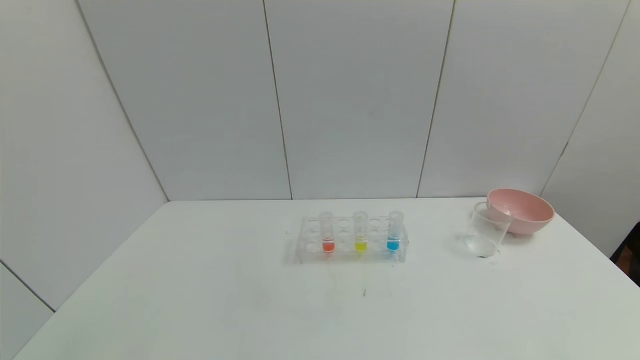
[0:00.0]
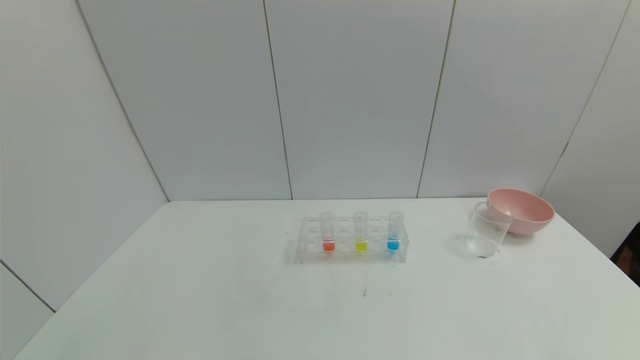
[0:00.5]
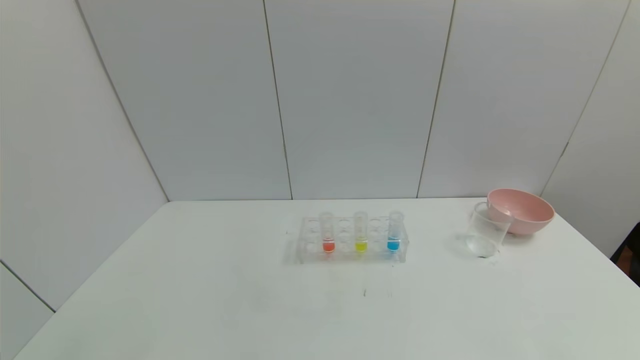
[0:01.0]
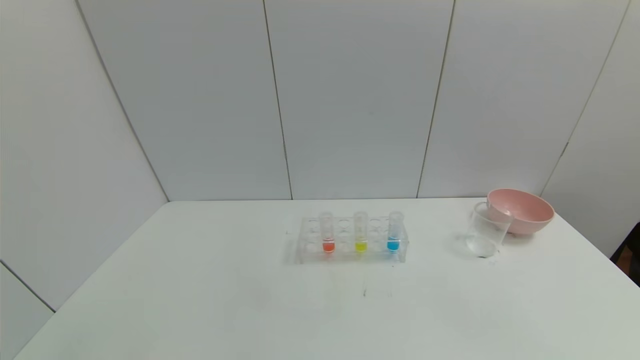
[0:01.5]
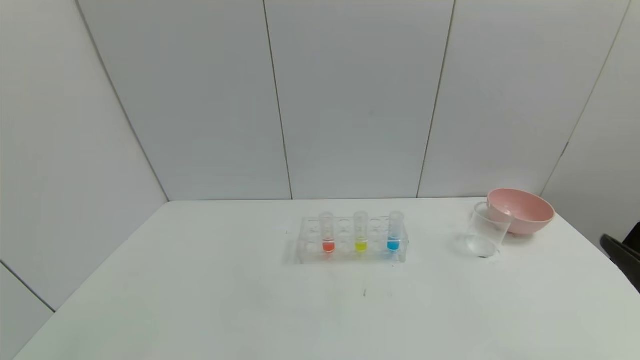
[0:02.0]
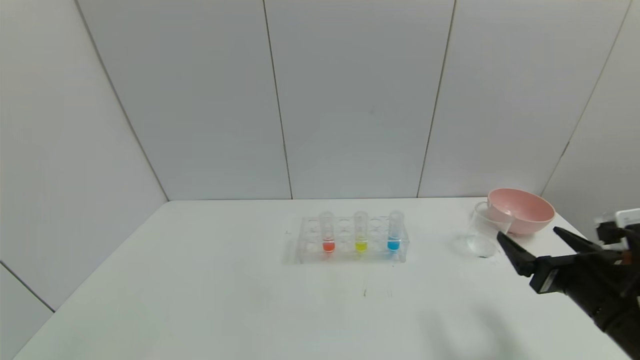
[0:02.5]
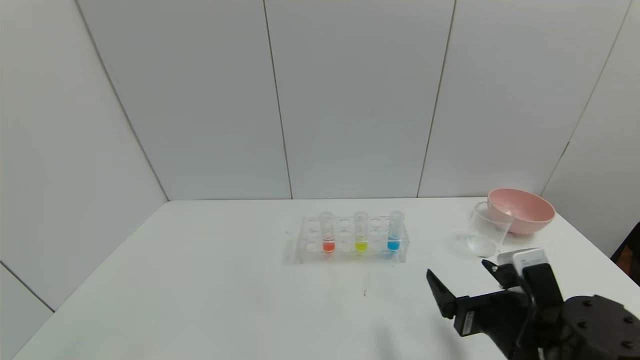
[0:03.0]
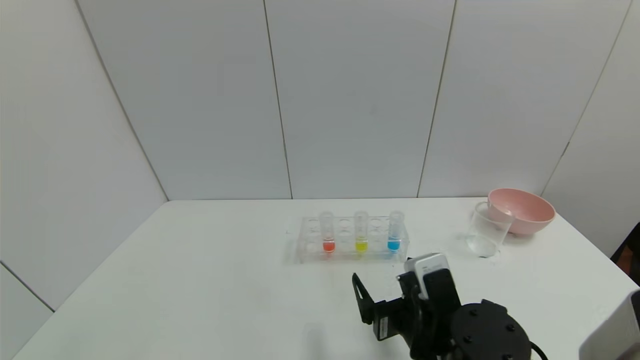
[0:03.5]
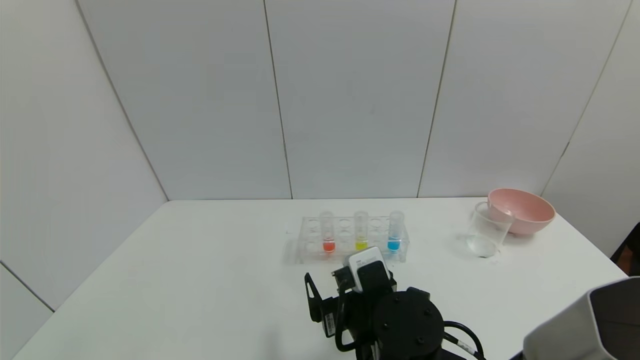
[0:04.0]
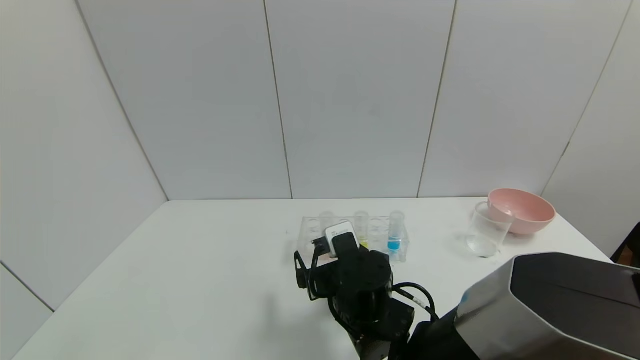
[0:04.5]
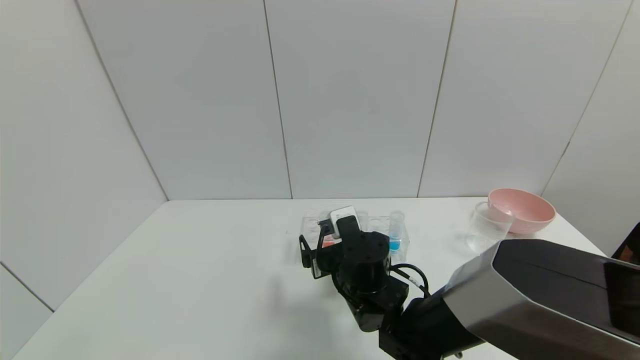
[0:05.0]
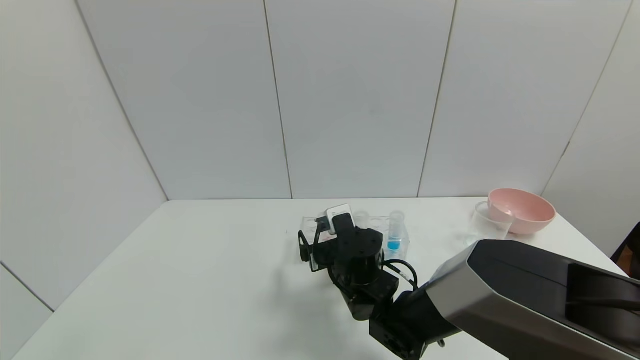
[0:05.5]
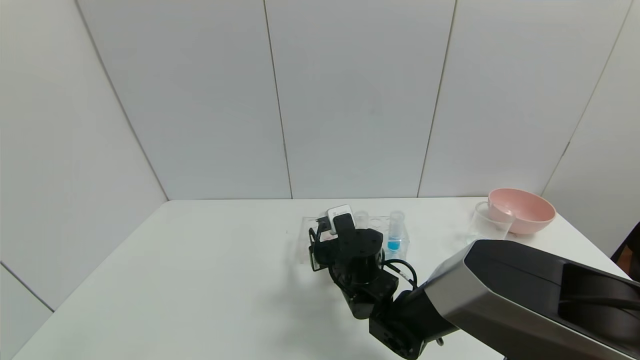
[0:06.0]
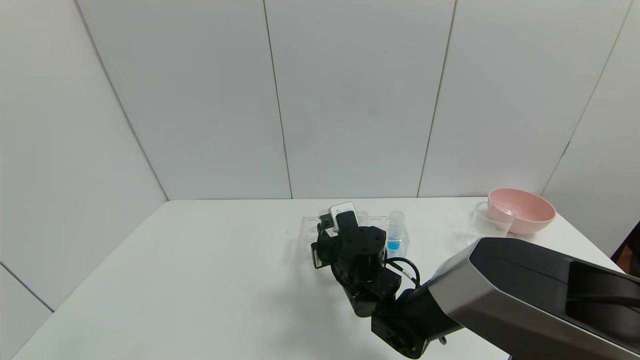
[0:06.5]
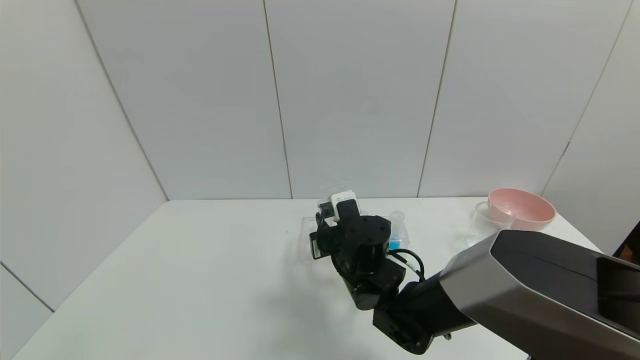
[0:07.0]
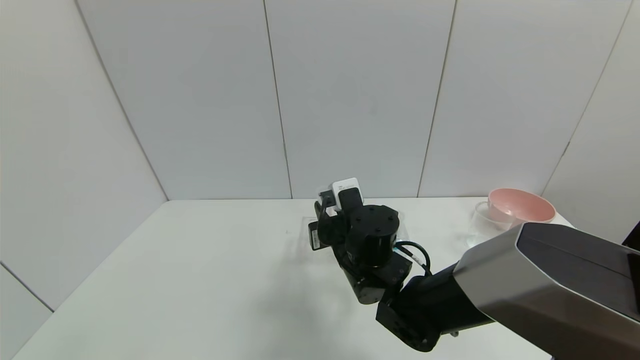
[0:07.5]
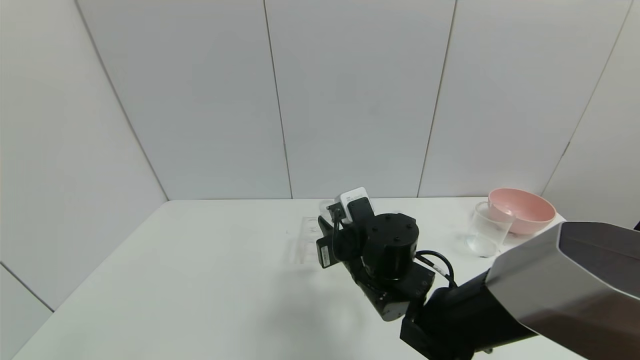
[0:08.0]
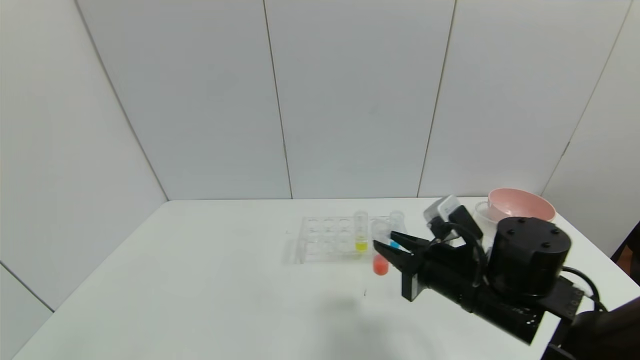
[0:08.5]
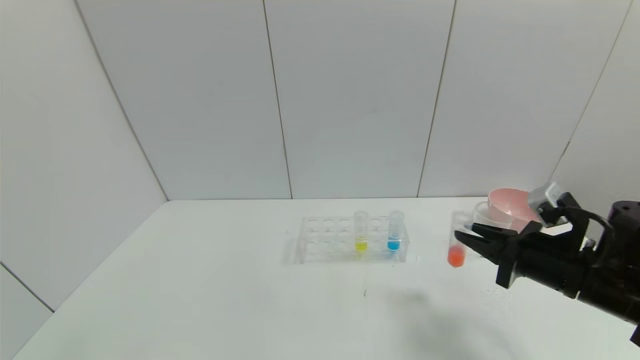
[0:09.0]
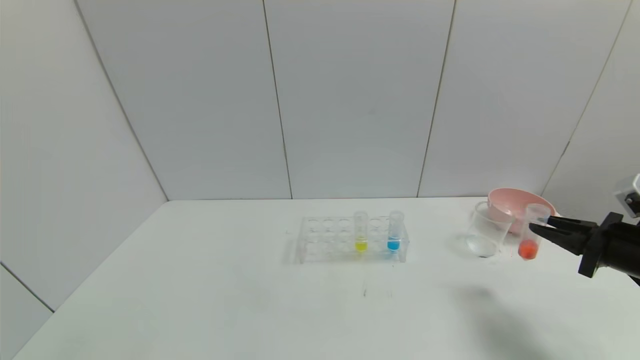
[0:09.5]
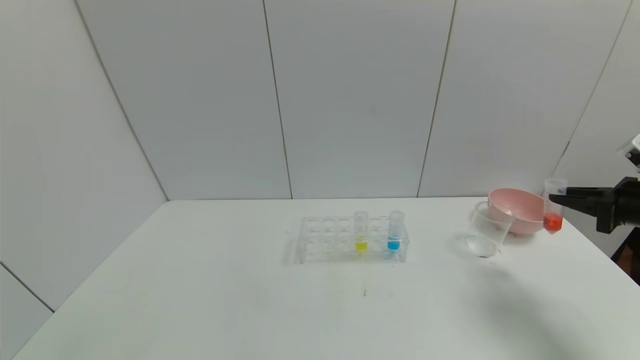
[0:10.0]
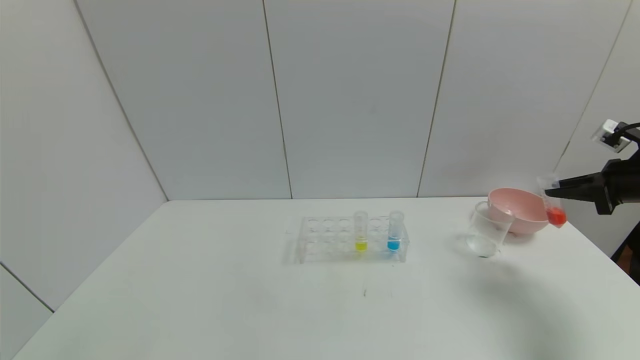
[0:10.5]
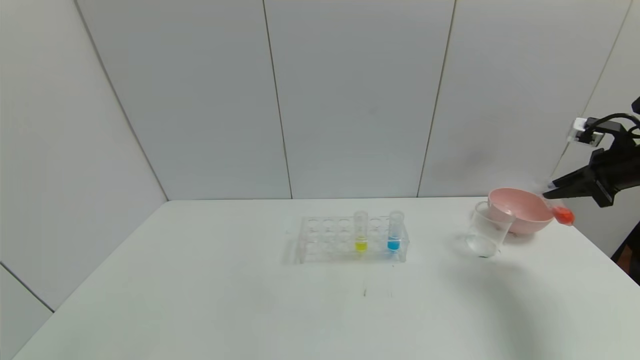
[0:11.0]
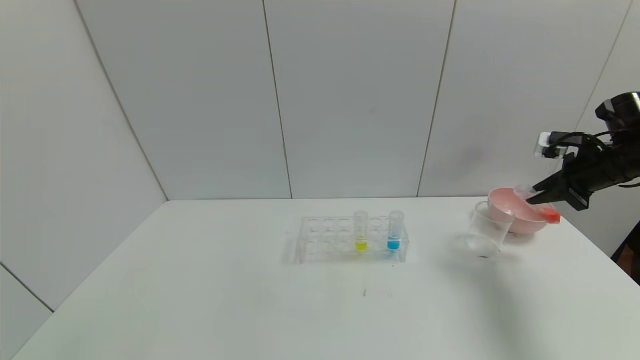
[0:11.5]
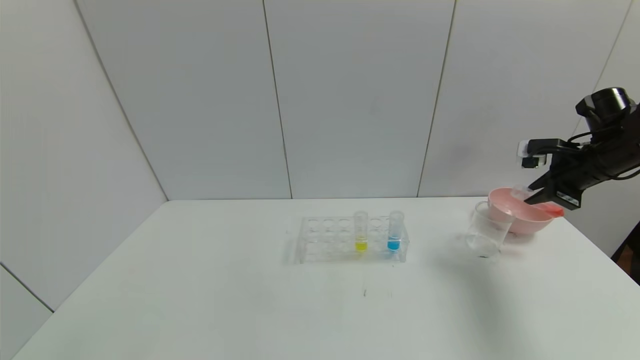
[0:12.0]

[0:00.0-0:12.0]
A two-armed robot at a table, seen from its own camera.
Task of the whole recording: pick up the test tube with red pigment and the test tube with blue pigment by grippers and pour them into the container.
Step, 0:00.0 to 0:06.0: Grasp the red reagent with the right gripper.
0:02.0 to 0:04.0: The right gripper heads to the left, covering some 30 cm.
0:04.0 to 0:06.0: The right gripper goes about 10 cm forward, and closes up.
0:06.0 to 0:08.0: The right gripper travels upward by roughly 5 cm, and closes up.
0:08.0 to 0:10.0: The right gripper moves to the right, some 40 cm.
0:10.0 to 0:12.0: The right gripper is displaced forward by roughly 10 cm.

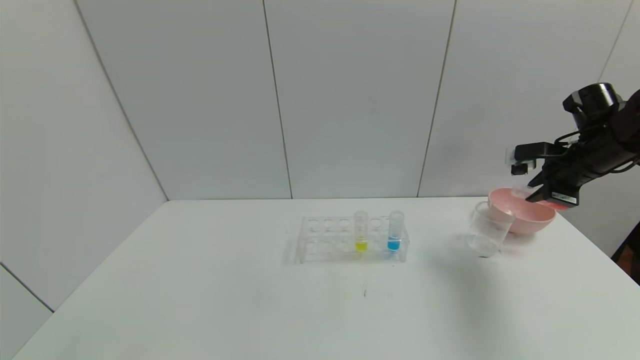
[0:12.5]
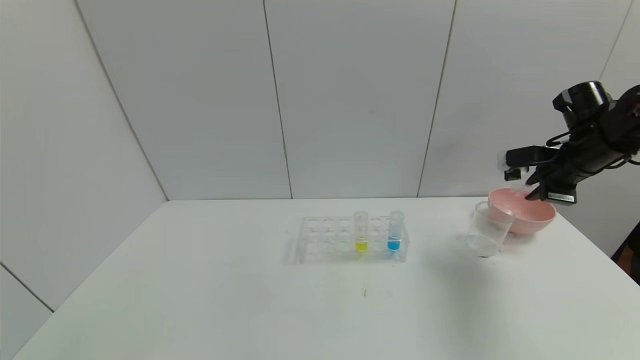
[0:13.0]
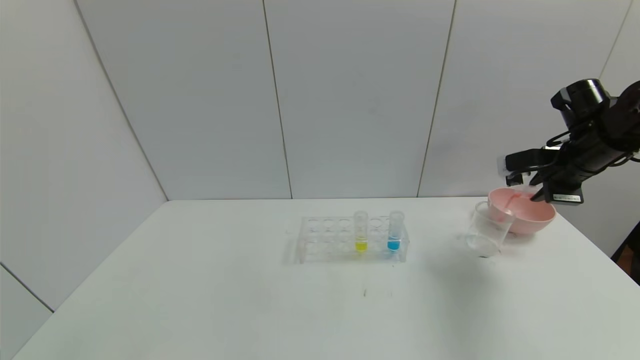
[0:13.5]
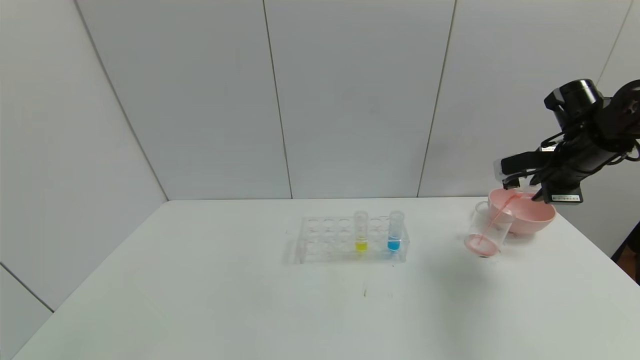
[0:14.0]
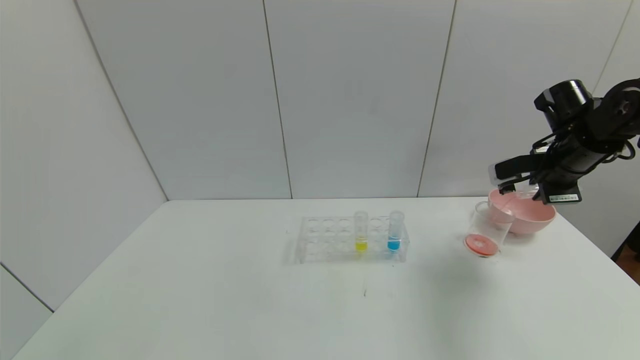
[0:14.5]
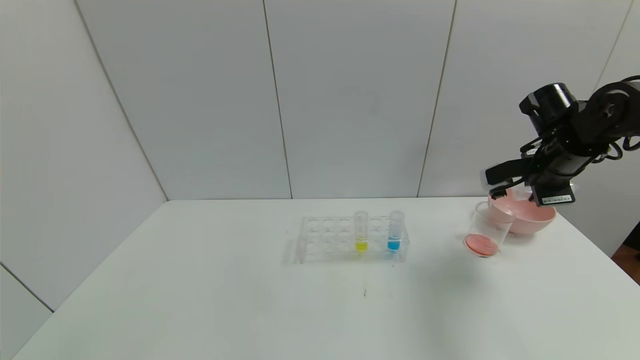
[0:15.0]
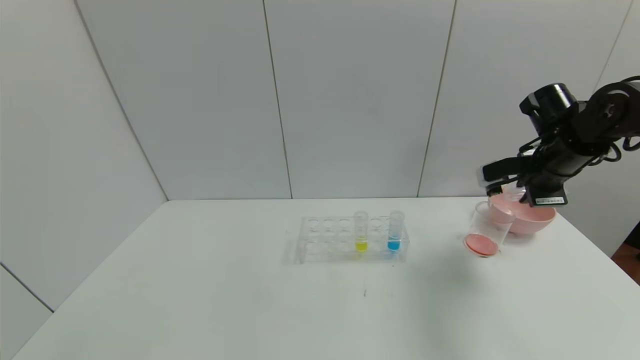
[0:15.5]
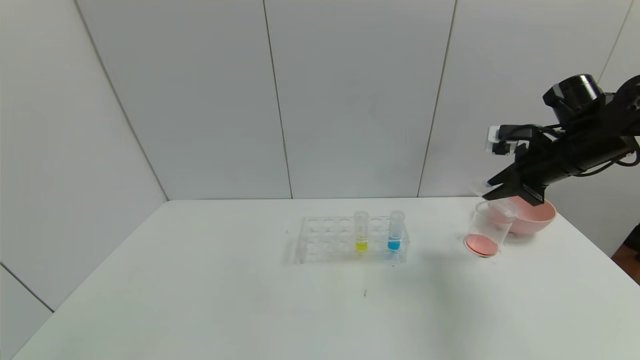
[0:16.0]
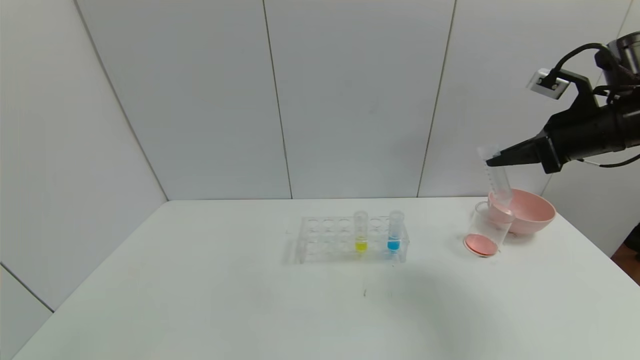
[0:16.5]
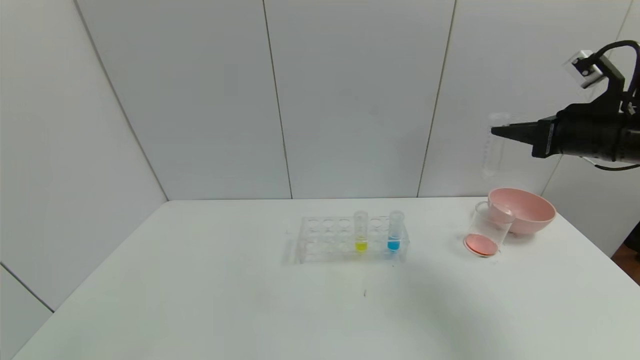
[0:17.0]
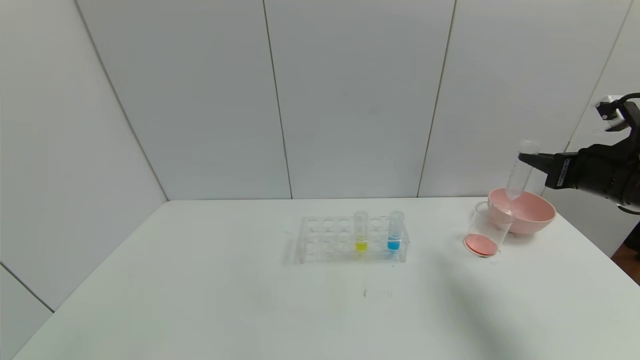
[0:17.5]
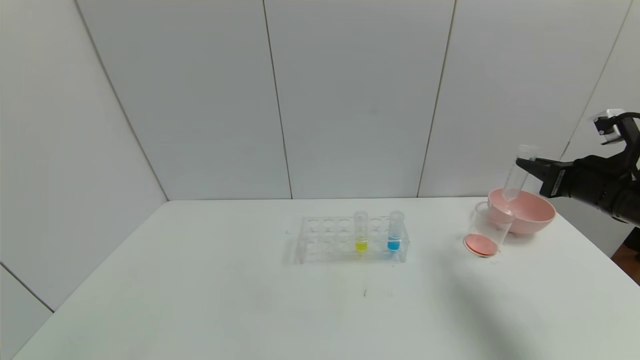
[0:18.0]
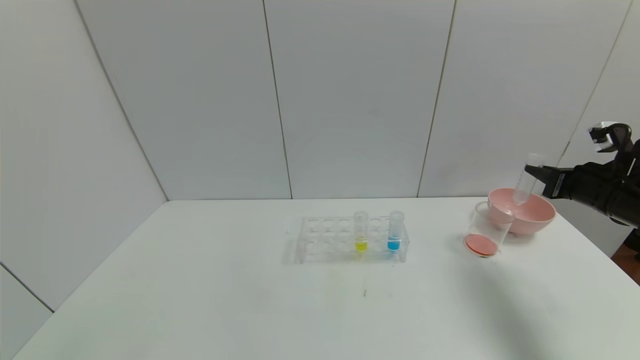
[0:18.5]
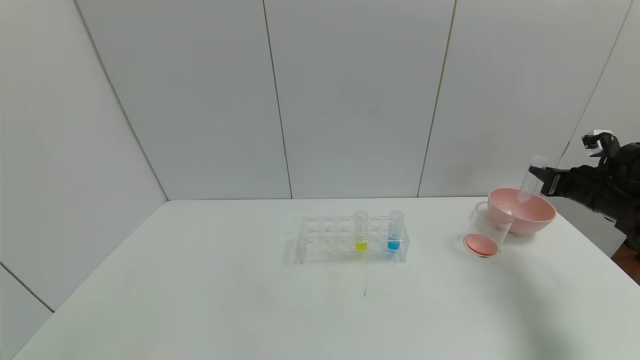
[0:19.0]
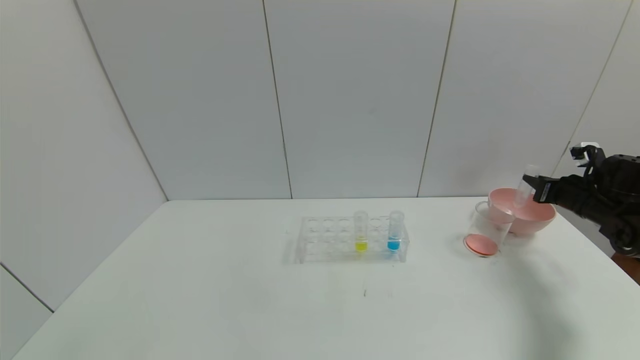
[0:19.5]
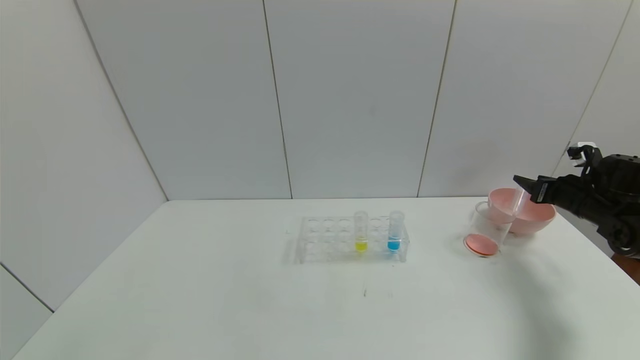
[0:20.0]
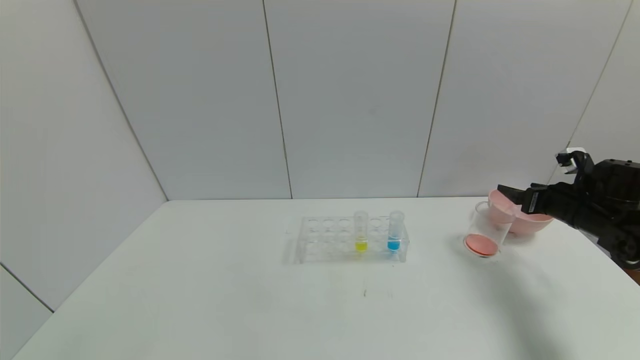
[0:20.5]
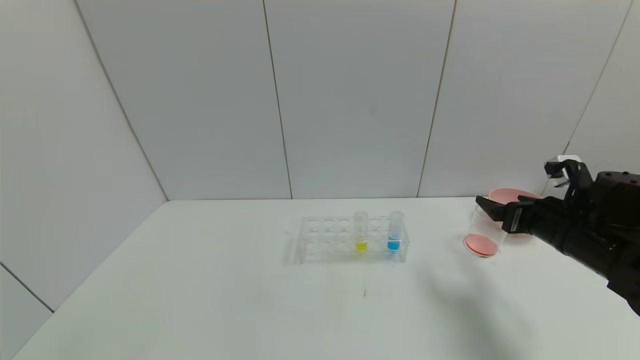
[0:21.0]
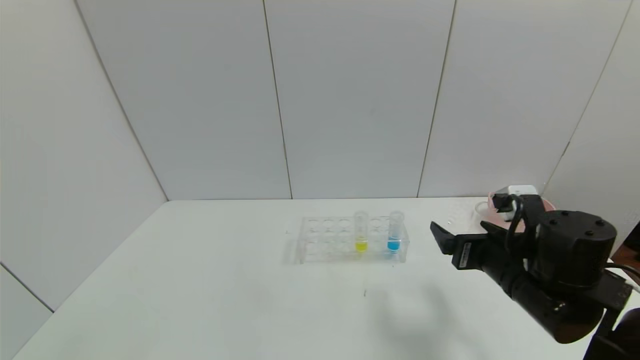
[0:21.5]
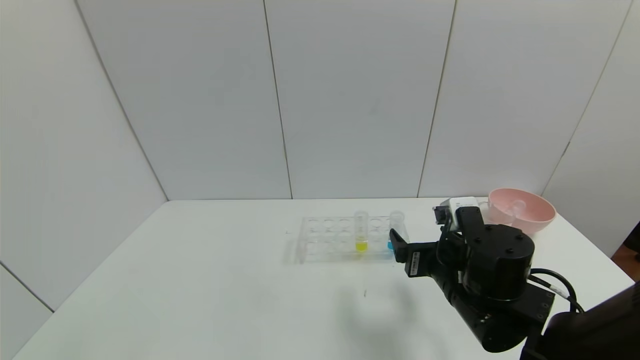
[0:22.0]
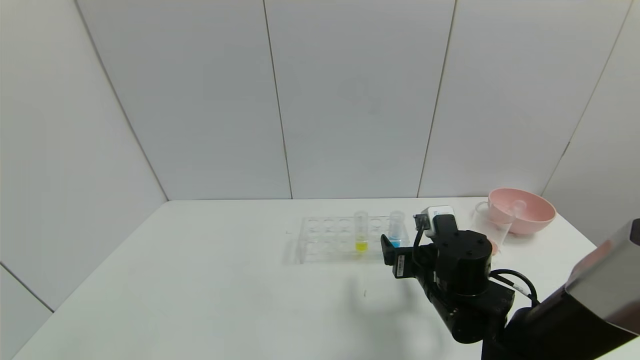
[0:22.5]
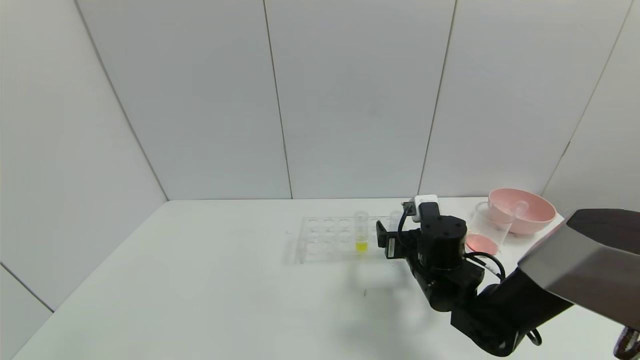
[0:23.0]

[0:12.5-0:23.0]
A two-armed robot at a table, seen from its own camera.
Task of the whole recording: pick up the test tube with red pigment and the test tube with blue pigment by grippers and pour them into the container.
Step, 0:12.5 to 0:14.5: Pour the red reagent into the graduated cylinder with the right gripper.
Step, 0:15.0 to 0:20.0: Place the test tube into the bowl with the right gripper.
0:14.5 to 0:16.5: The right gripper travels upward and backward by roughly 10 cm.
0:16.5 to 0:19.0: The right gripper travels downward and to the right by about 20 cm.
0:19.0 to 0:21.0: The right gripper goes about 15 cm to the left and backward, and opens up.
0:21.0 to 0:23.0: The right gripper travels to the left and downward by about 20 cm.
